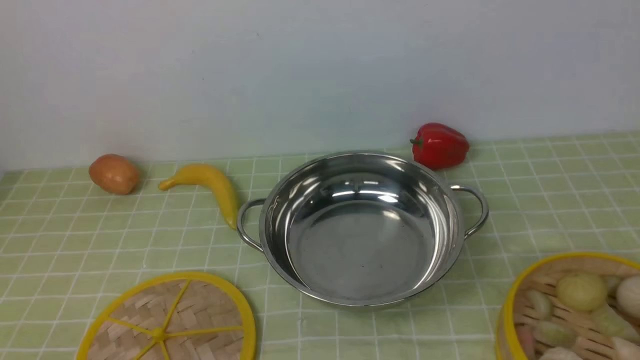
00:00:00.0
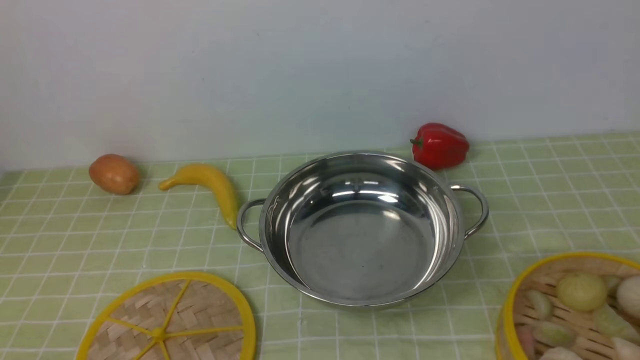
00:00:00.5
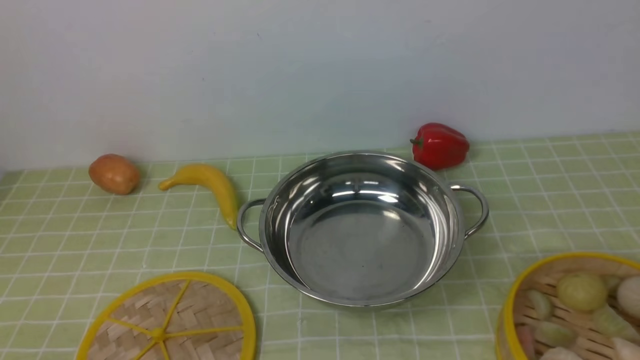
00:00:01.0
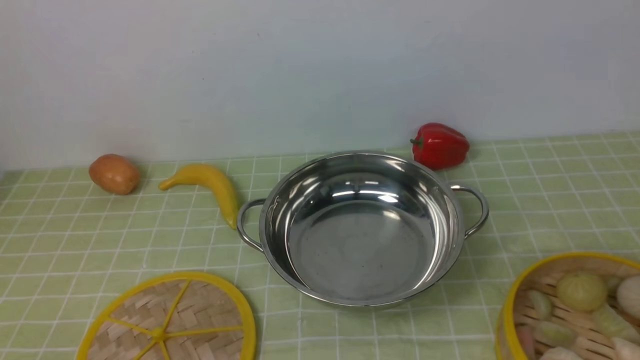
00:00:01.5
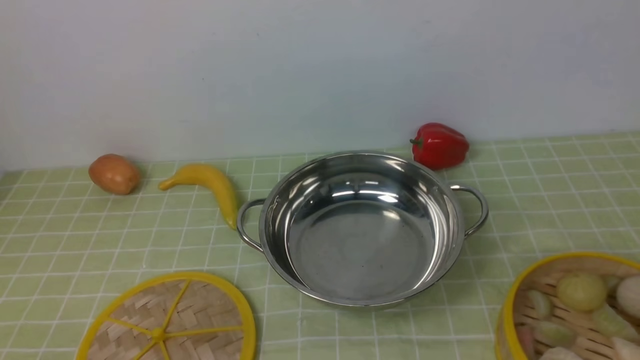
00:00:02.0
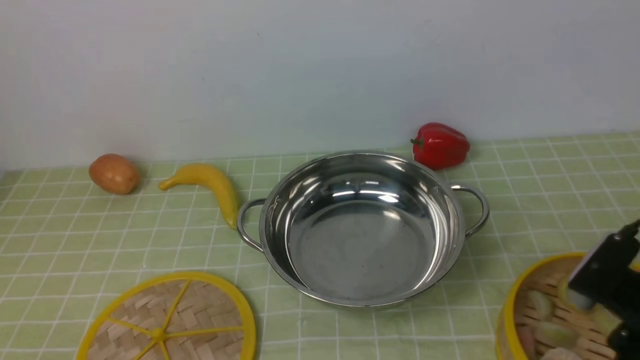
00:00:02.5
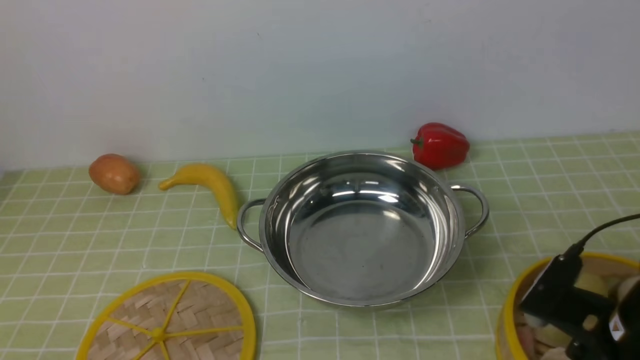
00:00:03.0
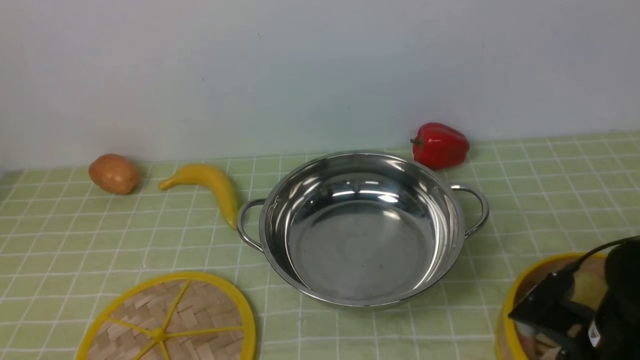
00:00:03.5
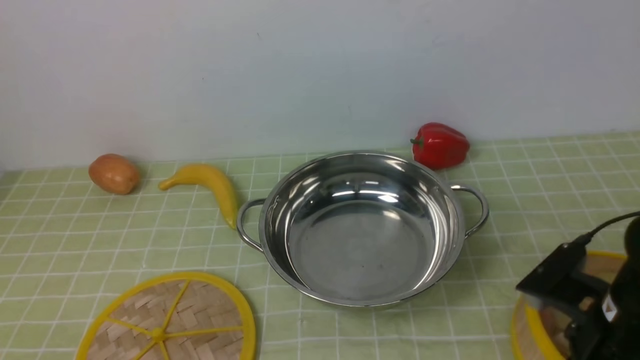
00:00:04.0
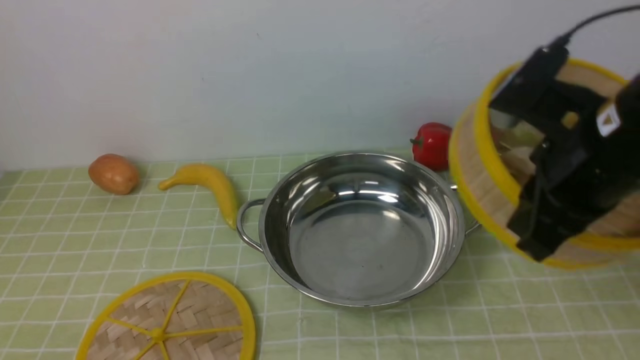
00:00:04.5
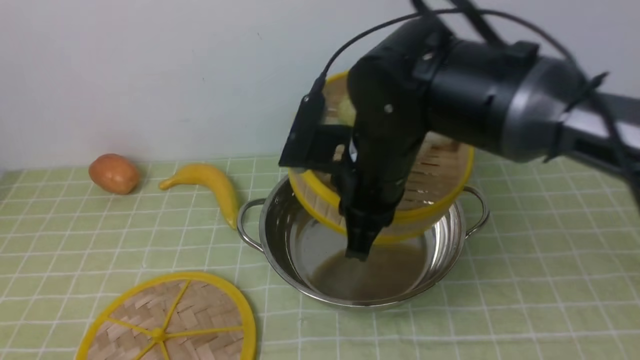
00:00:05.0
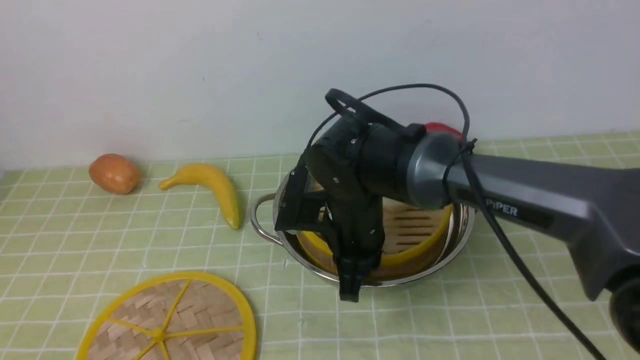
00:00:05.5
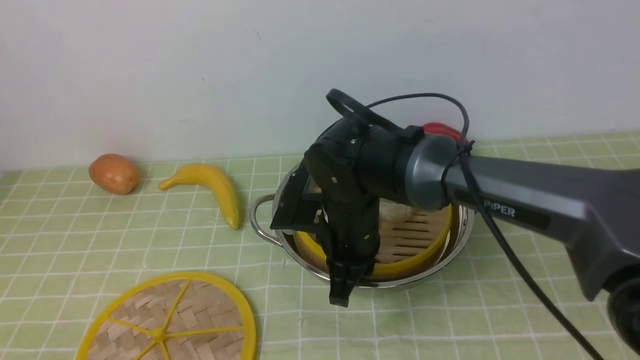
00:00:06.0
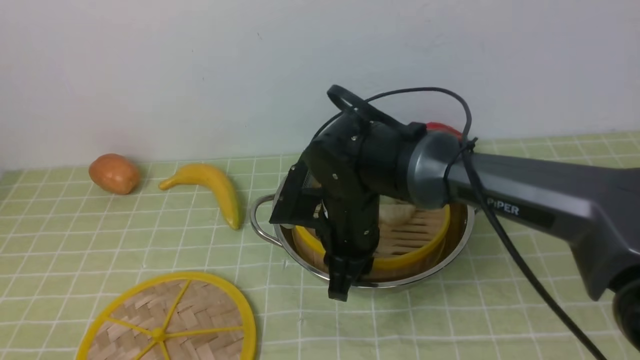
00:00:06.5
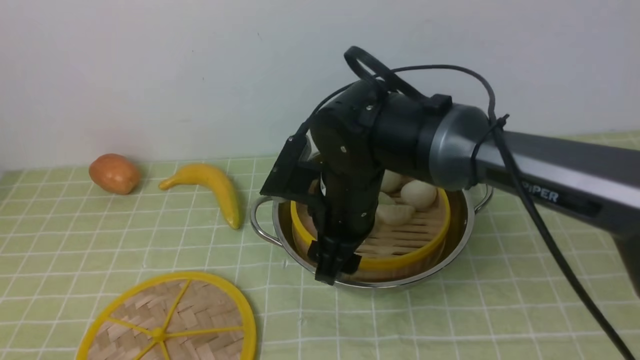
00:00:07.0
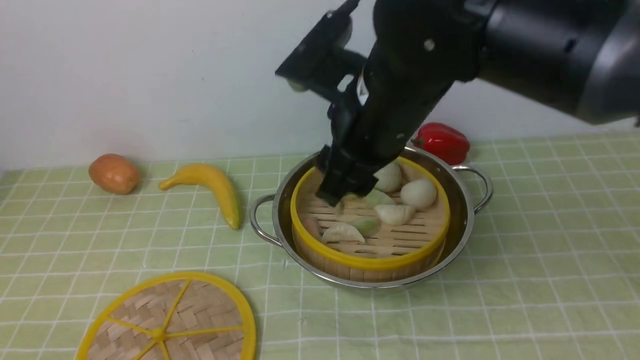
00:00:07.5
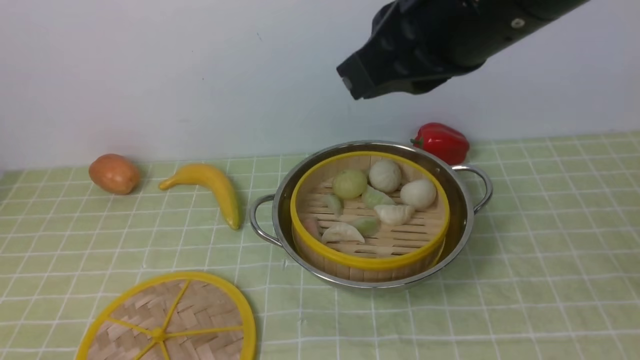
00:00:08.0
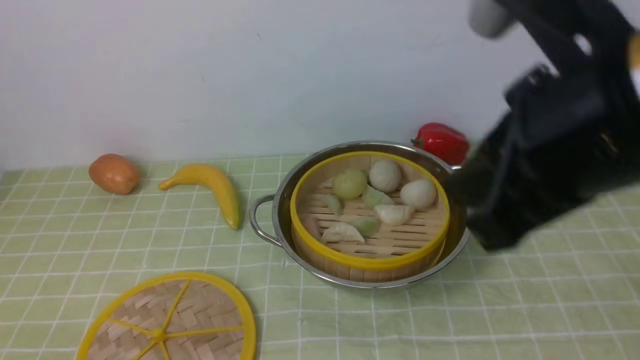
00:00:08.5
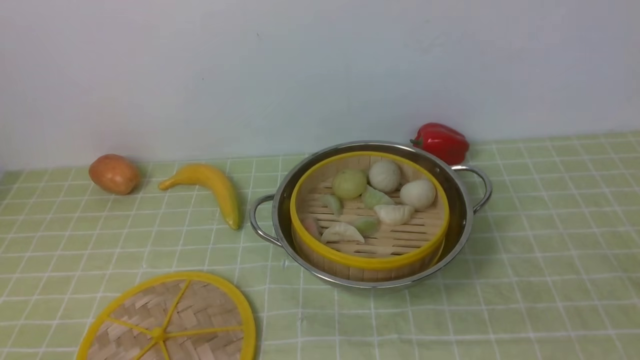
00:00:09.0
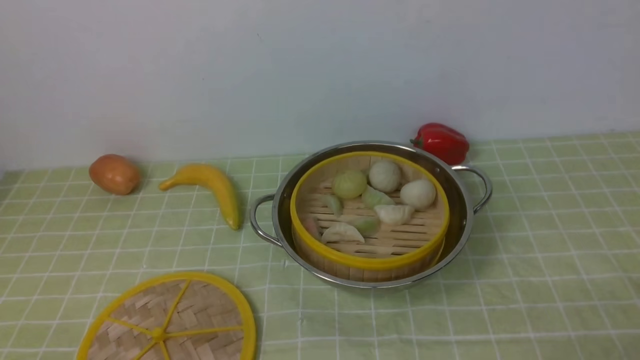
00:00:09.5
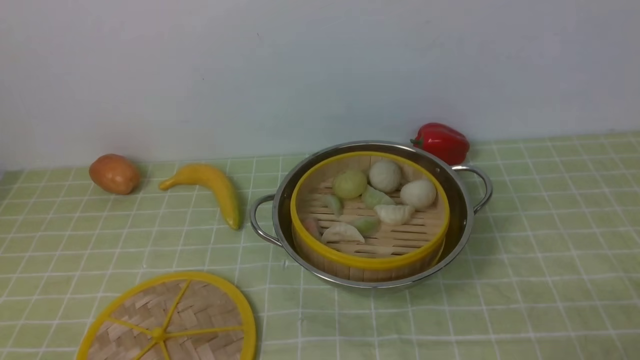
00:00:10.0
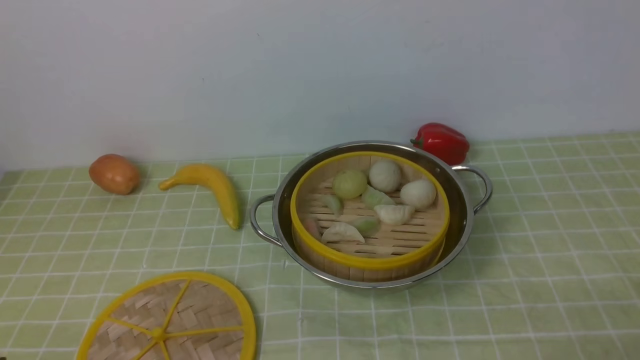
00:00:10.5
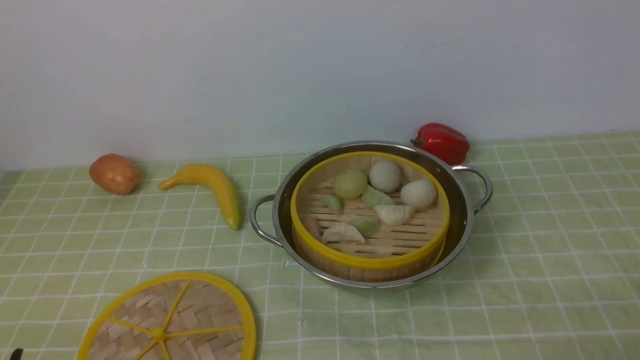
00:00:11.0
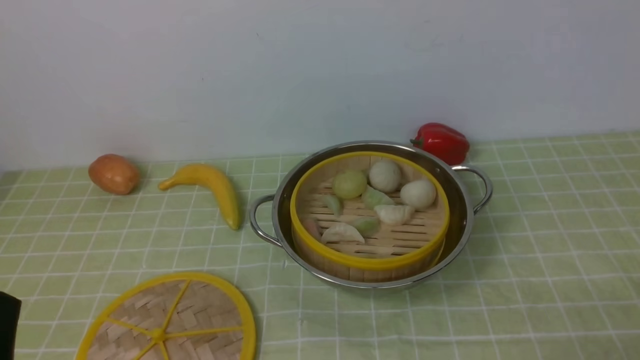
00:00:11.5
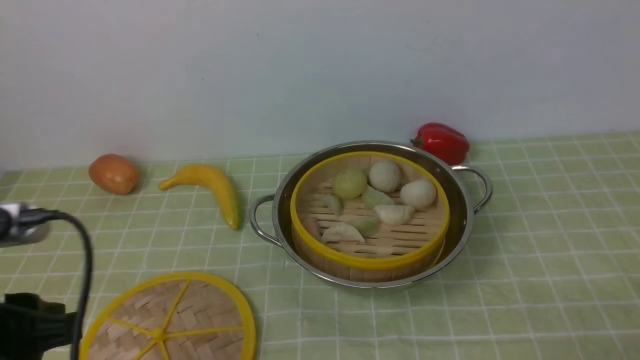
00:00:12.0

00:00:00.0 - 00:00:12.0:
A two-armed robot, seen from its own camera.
Task of the whole recording: place the steamer in the pot on the green tablecloth, and put the lid on the steamer.
Step, 00:00:00.0 - 00:00:04.0: use the right arm to lift the steamer closest to it.
Step, 00:00:05.0 - 00:00:07.5: use the right arm to put the steamer into the iron steamer pot in the middle.
00:00:02.0 - 00:00:04.0: The right gripper shifts about 15 cm forward, downward and to the left, and closes up.
00:00:04.0 - 00:00:06.0: The right gripper travels to the left and forward by roughly 25 cm.
00:00:06.0 - 00:00:08.0: The right gripper moves upward, roughly 25 cm, and opens and closes again.
00:00:08.0 - 00:00:10.0: The right gripper goes roughly 40 cm downward, to the right and backward.
00:00:10.0 - 00:00:12.0: The left gripper moves upward and forward, approximately 15 cm.

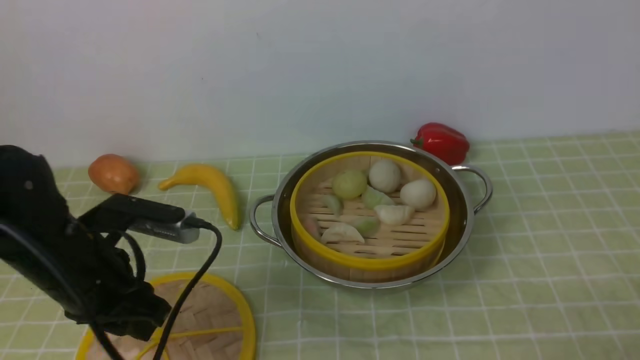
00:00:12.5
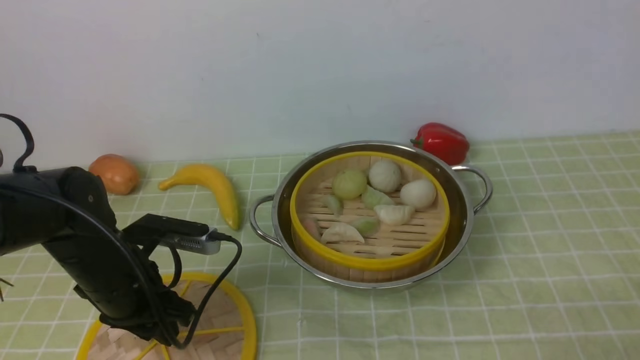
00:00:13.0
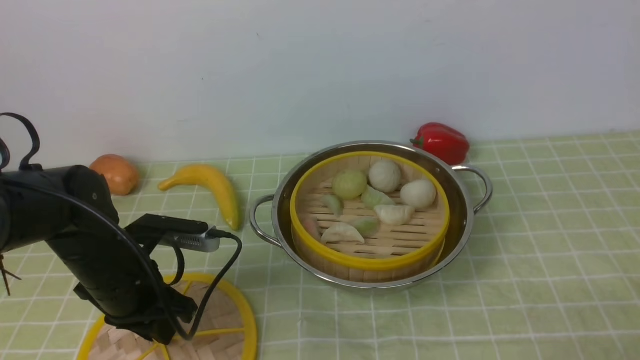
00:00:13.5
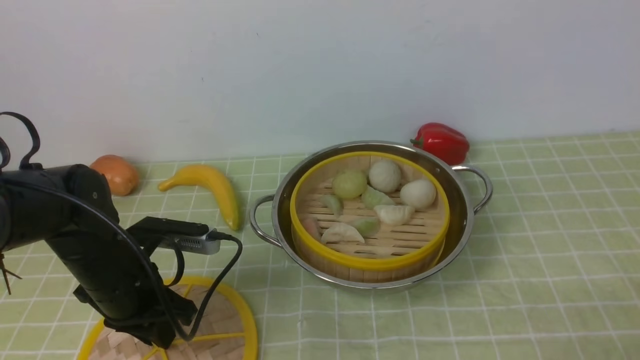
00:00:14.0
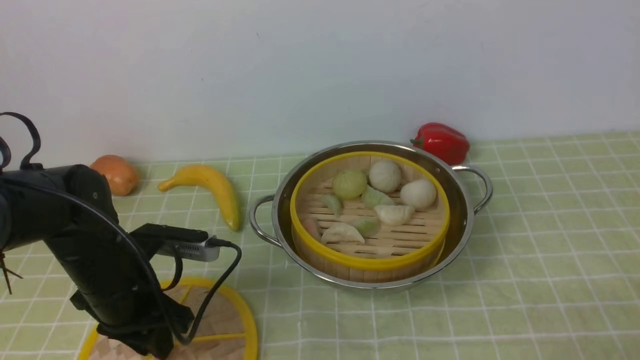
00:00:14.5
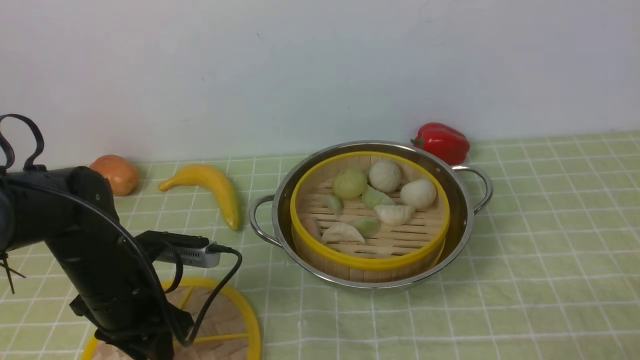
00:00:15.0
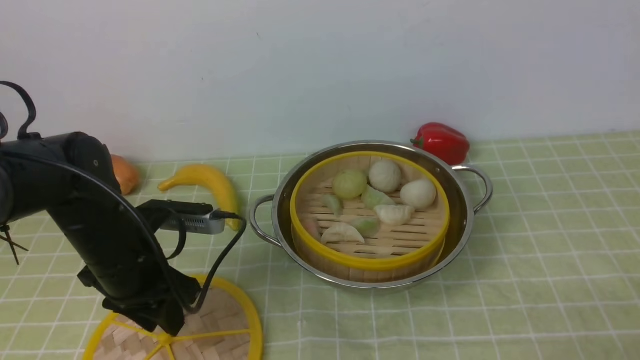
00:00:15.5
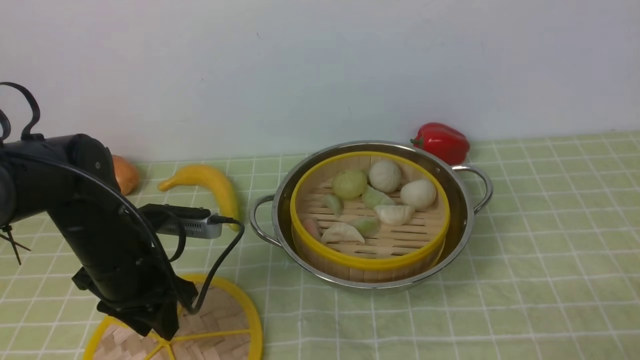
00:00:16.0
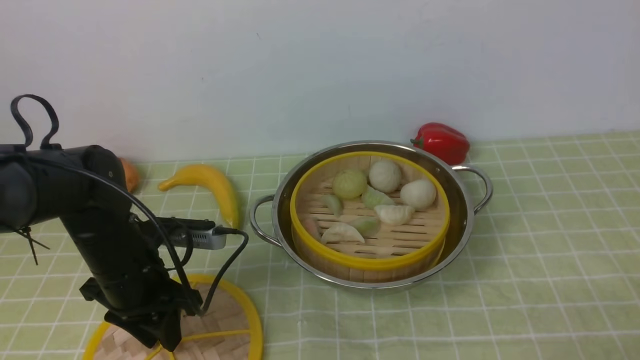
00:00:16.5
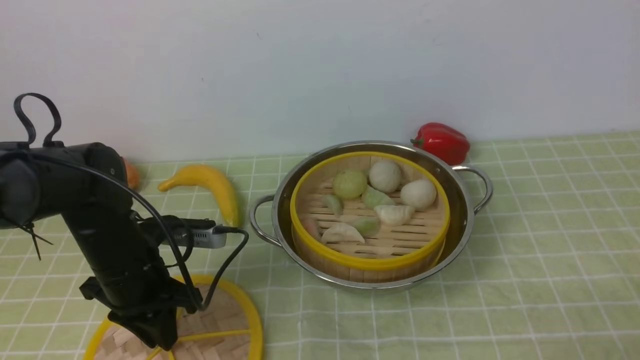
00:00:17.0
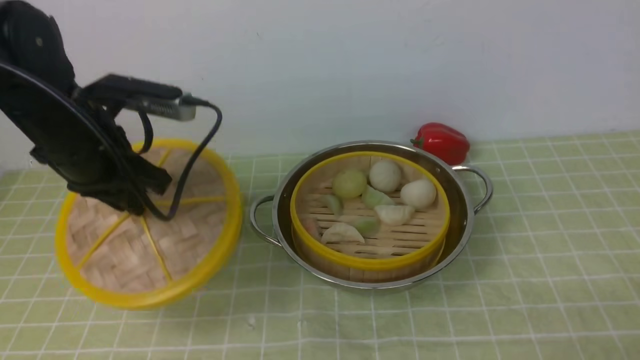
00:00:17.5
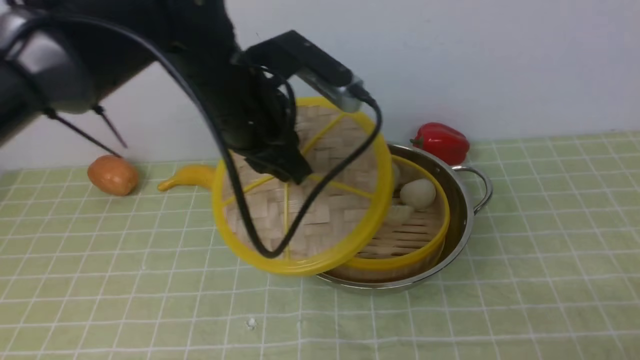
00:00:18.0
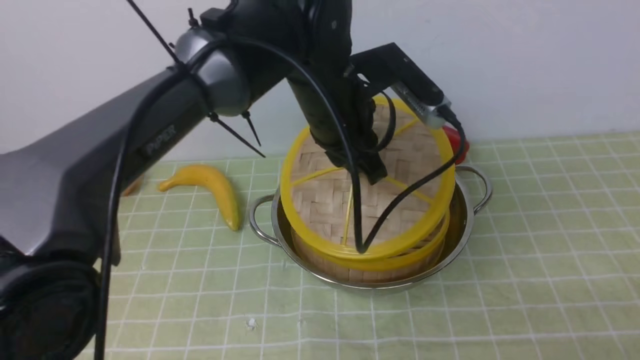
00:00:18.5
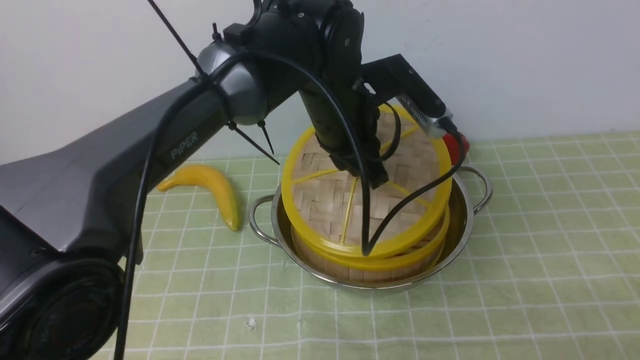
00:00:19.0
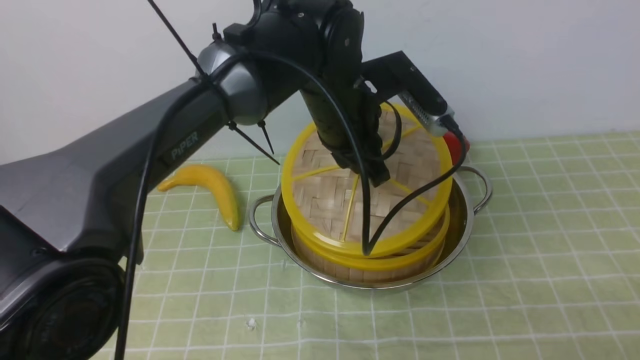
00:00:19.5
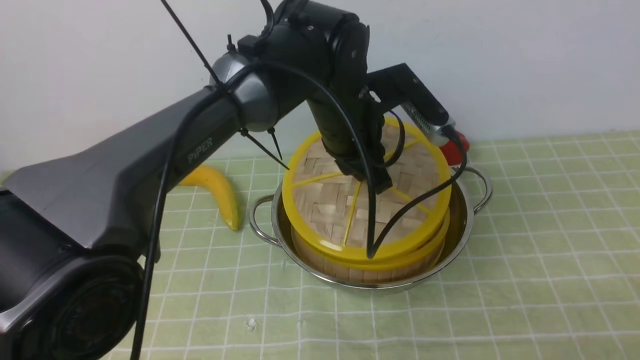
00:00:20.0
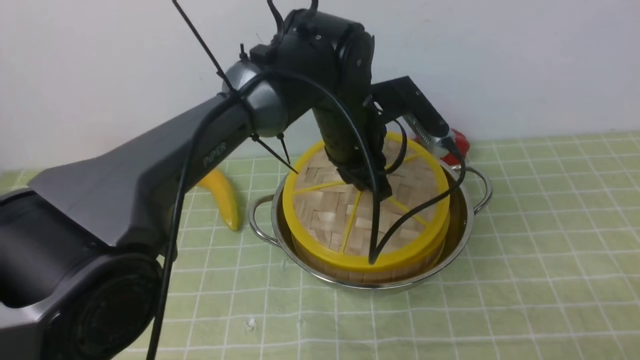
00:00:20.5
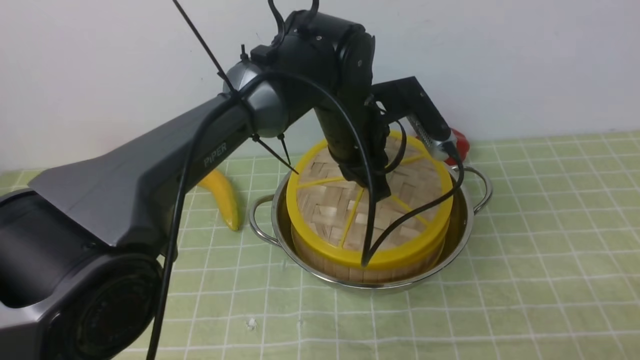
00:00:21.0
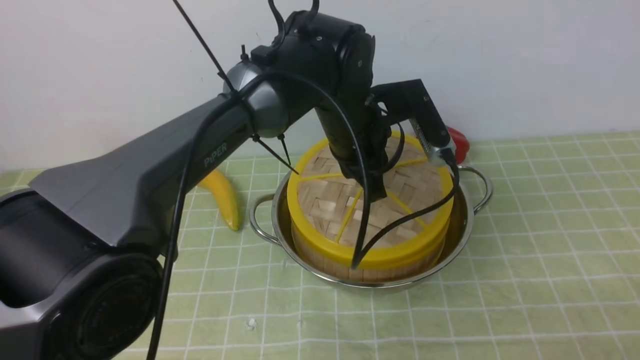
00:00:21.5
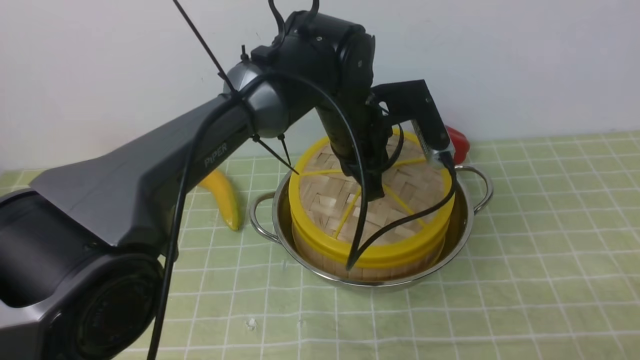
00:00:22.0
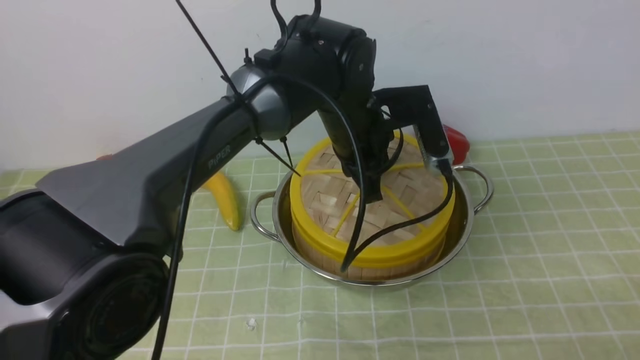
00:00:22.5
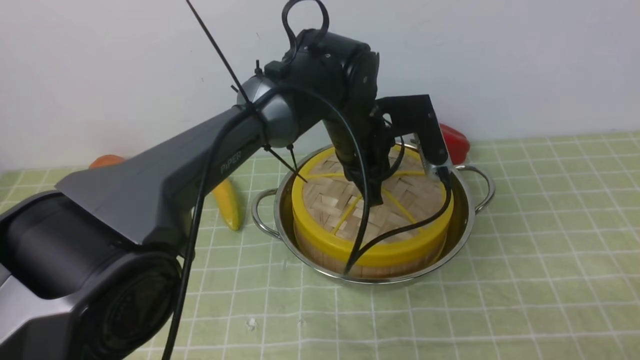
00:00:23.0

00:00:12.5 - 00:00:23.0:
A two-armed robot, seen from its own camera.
Task of the whole recording: place the steamer in the pot on the green tablecloth, and put the lid on the steamer.
Step, 00:00:12.5 - 00:00:17.5: use the left arm to lift the lid of the steamer.
00:00:12.5 - 00:00:14.5: The left gripper travels downward by roughly 5 cm.
00:00:14.5 - 00:00:16.5: The grippers move only a little.
00:00:16.5 - 00:00:19.0: The left gripper is displaced to the right, upward and forward by some 25 cm.
00:00:21.0 - 00:00:23.0: The grippers make only small movements.
